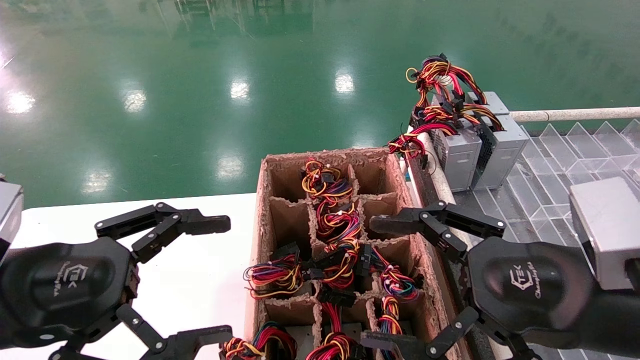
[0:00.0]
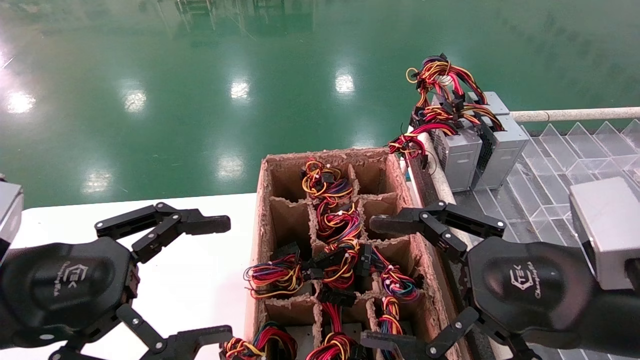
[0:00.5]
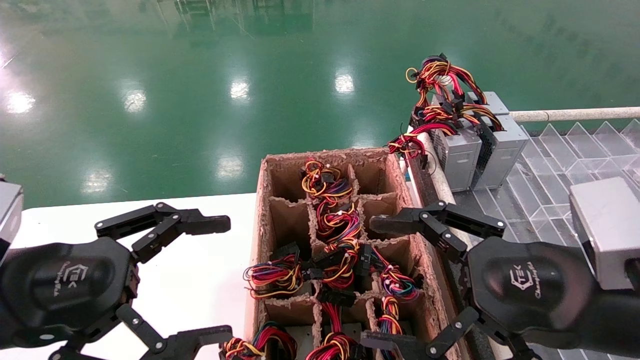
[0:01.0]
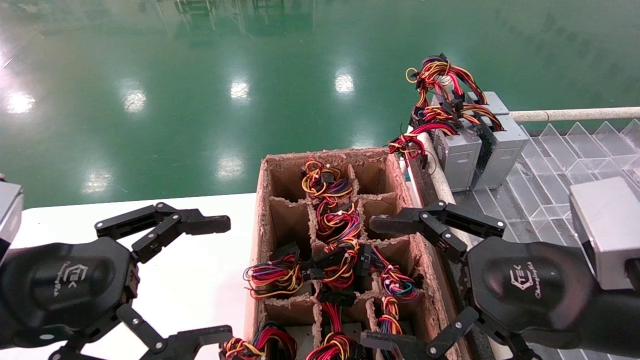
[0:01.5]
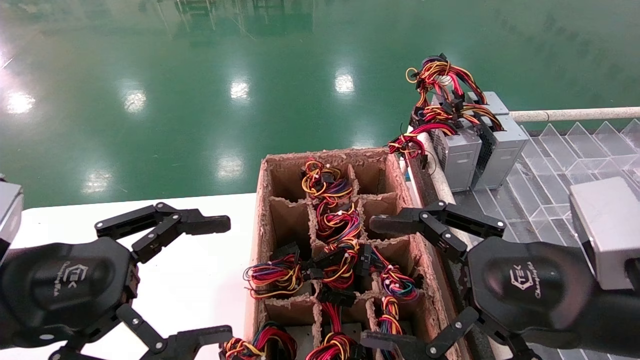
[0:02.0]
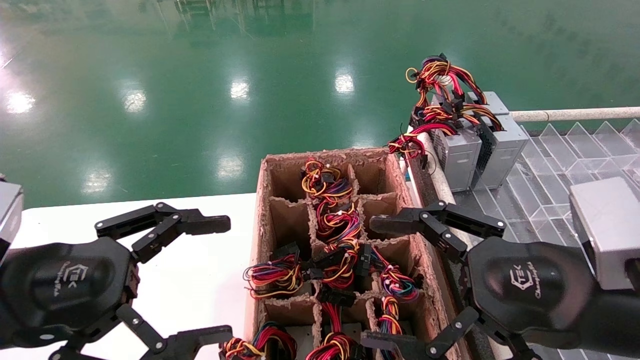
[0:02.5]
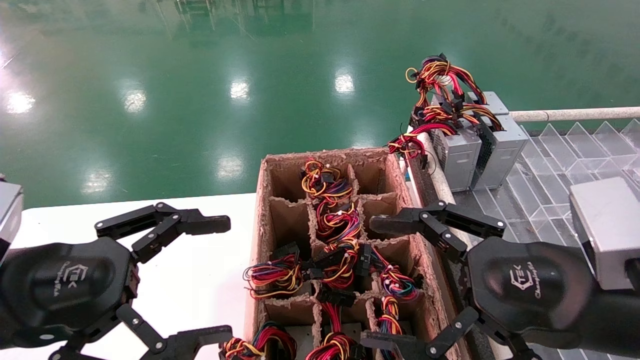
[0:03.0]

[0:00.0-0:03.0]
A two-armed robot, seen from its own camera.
0:00.0 to 0:03.0: Neither gripper changes place.
